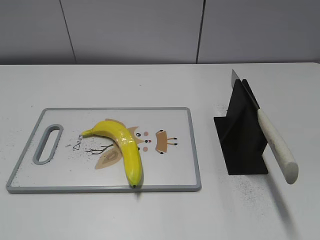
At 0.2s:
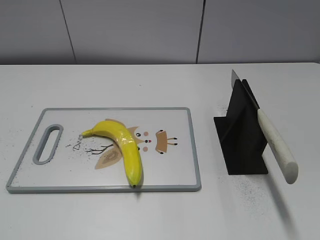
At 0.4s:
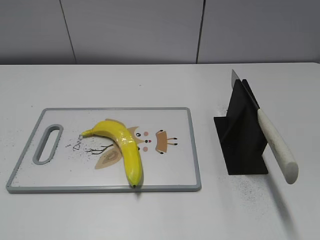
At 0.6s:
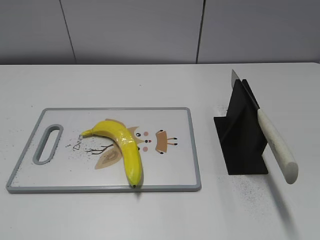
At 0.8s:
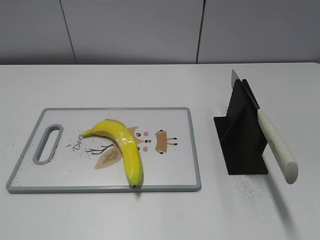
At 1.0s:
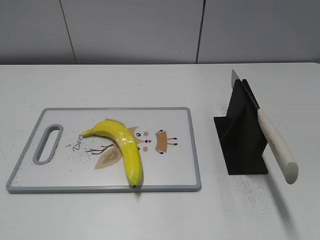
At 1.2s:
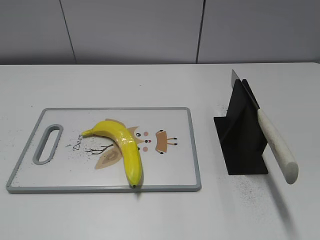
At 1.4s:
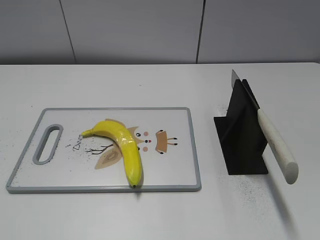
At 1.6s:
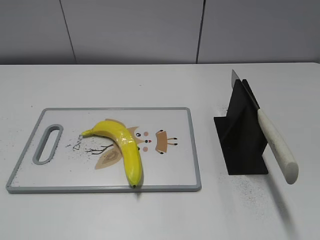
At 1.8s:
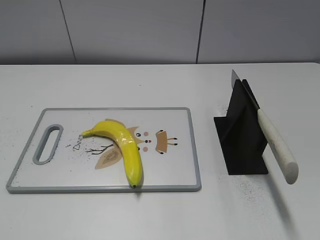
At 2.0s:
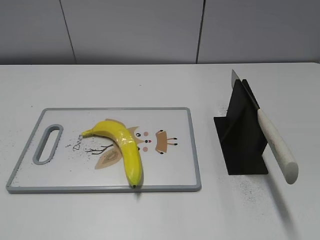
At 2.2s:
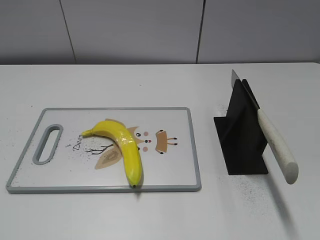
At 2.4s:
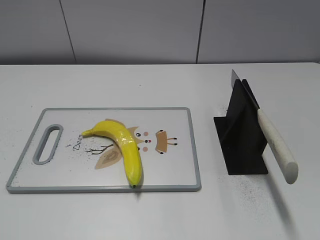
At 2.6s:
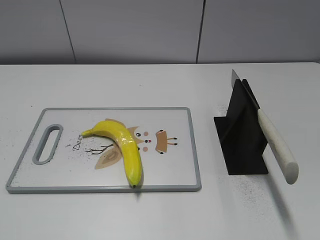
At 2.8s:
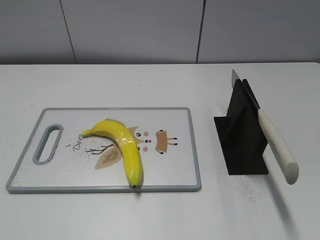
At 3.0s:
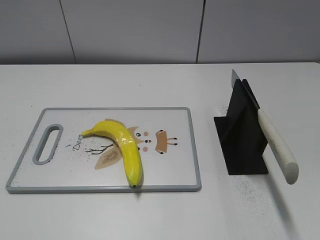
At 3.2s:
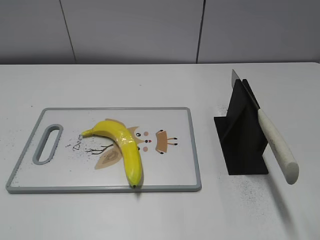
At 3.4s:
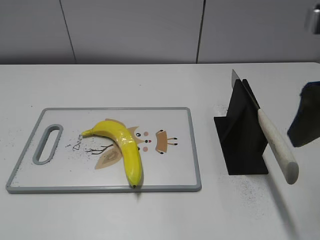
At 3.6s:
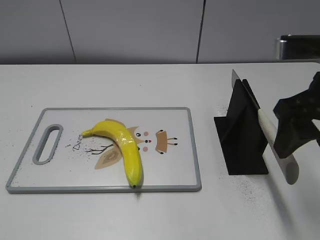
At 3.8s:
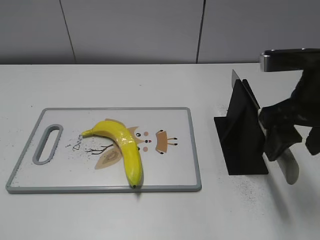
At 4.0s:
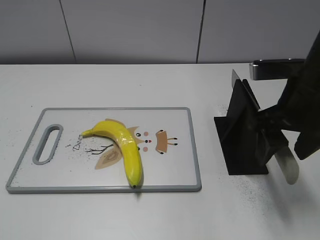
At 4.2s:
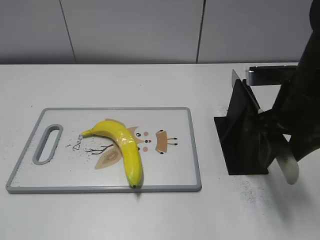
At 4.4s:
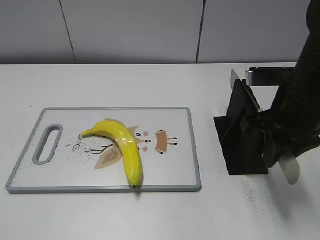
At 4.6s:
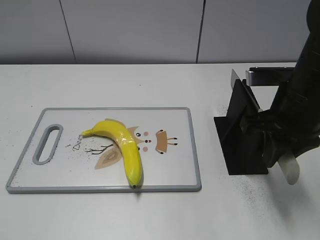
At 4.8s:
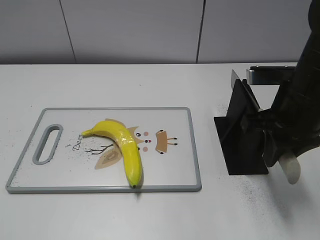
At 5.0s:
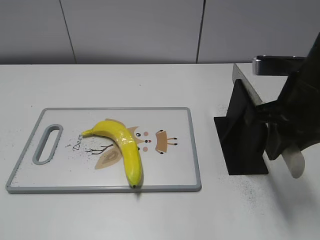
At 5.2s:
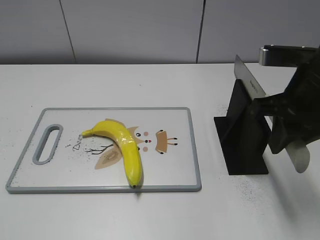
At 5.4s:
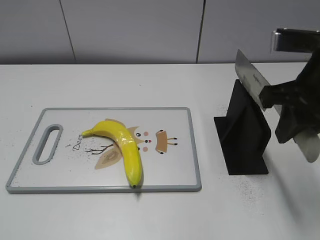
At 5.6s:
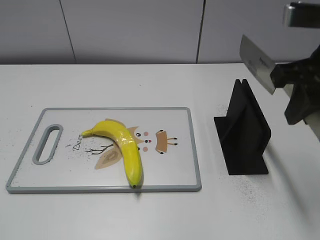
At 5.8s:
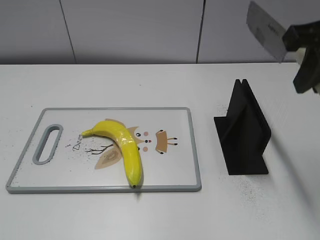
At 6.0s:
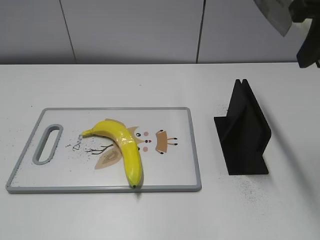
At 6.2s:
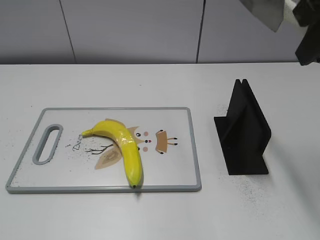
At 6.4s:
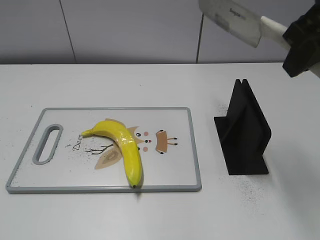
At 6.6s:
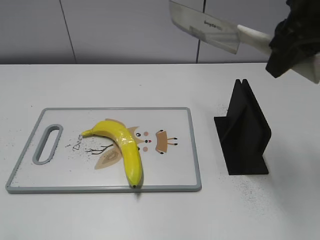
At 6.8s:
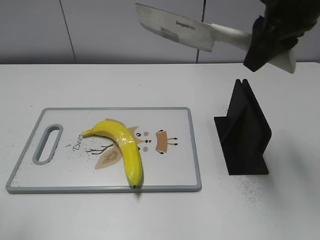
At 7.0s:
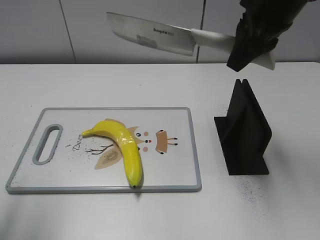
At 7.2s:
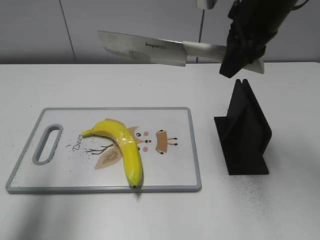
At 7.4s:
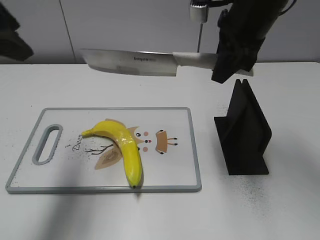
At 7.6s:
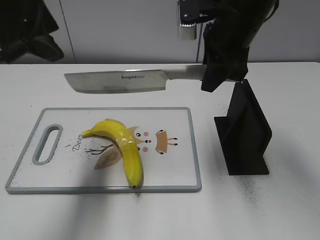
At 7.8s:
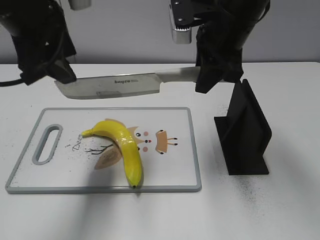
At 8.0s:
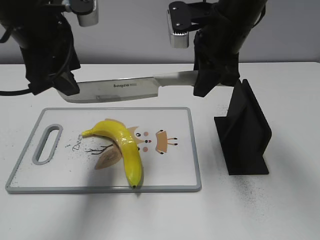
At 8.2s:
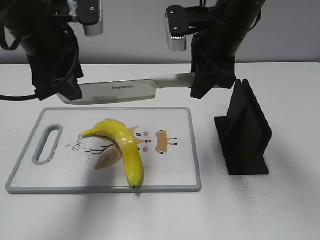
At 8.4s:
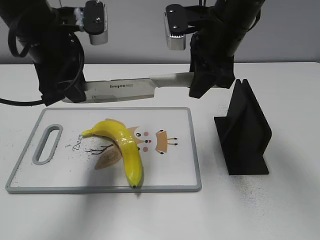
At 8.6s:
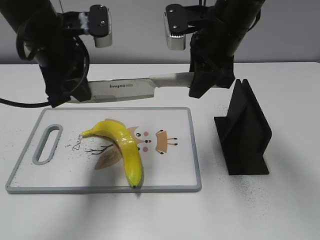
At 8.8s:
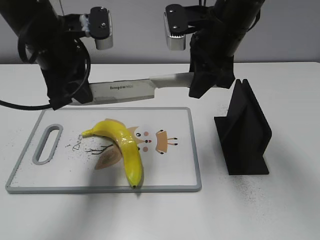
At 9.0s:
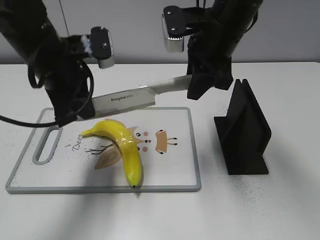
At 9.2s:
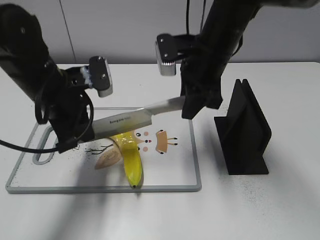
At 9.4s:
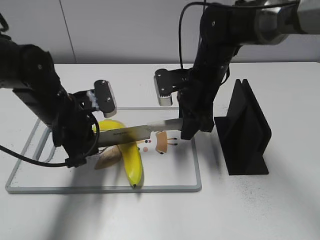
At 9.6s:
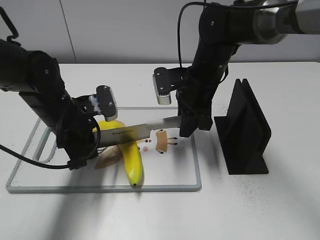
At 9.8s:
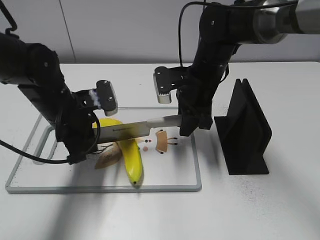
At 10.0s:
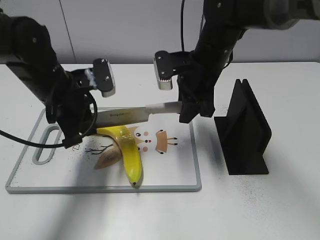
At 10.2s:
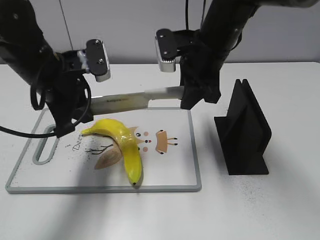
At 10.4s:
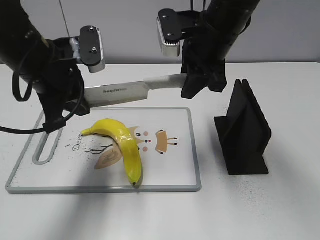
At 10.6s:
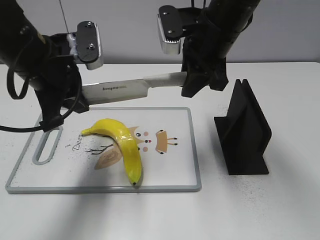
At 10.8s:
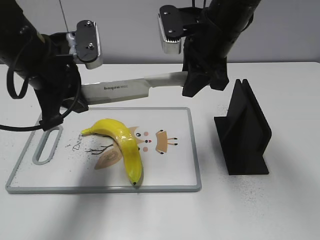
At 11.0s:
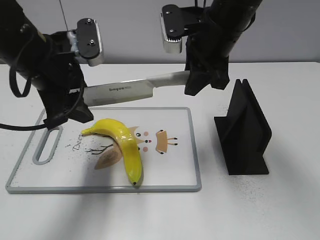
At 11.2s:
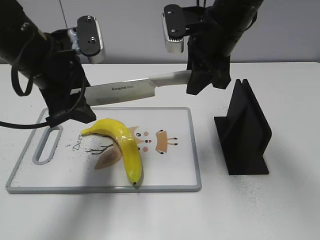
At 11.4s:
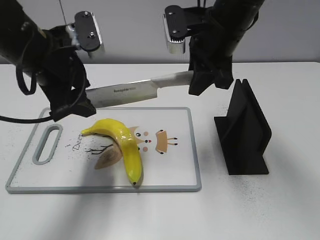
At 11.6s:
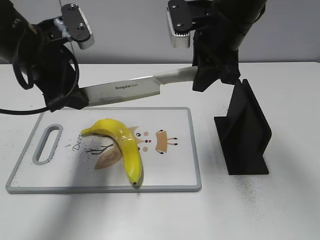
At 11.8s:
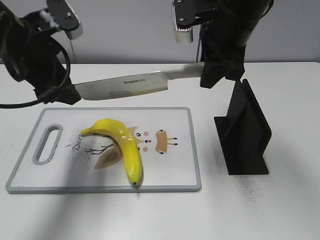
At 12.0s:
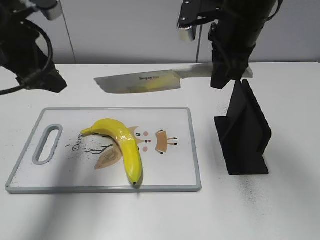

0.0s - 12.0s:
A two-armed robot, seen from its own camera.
Task of the whole recording: cut plastic banana.
Step, 0.0s - 5.6s: Grab the knife handle with your right hand.
Step, 5.8s - 10.6s: Hold the blade with your left hand.
Step, 11.0s - 11.8s: Cut the banana with your right hand.
3.0s - 4.4s: The right gripper moves forward, downward and to the left, approximately 20 cm, and closes its fingers.
4.4s - 6.0s: The right gripper moves upward, approximately 15 cm.
6.0s - 7.6s: The left gripper heads forward and to the right, covering approximately 30 cm. The right gripper shifts approximately 15 cm forward, downward and to the left.
7.6s - 9.0s: The left gripper heads downward, covering roughly 10 cm, and closes up.
9.0s - 10.4s: The right gripper moves approximately 10 cm downward and comes back; the left gripper goes downward and returns, approximately 10 cm each way.
10.4s - 12.0s: The left gripper changes place by about 5 cm, and opens up.

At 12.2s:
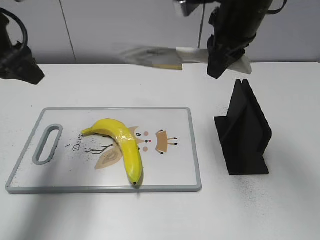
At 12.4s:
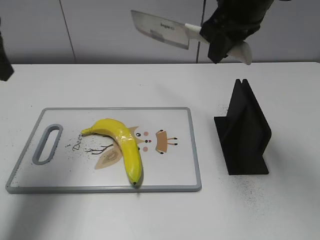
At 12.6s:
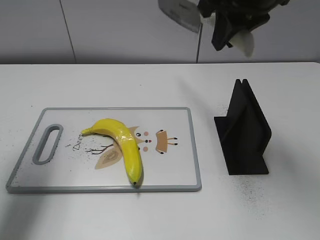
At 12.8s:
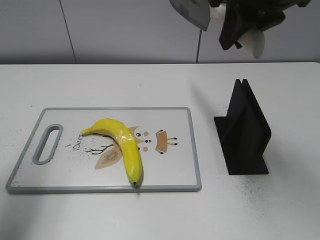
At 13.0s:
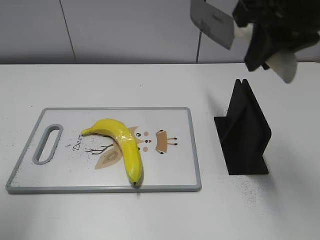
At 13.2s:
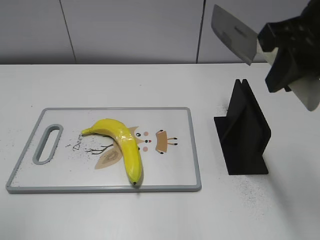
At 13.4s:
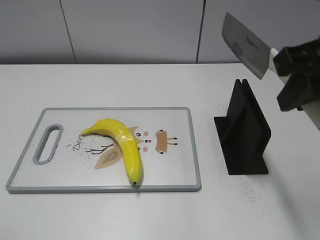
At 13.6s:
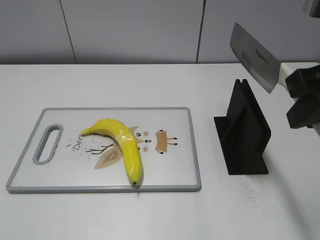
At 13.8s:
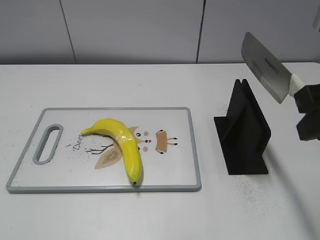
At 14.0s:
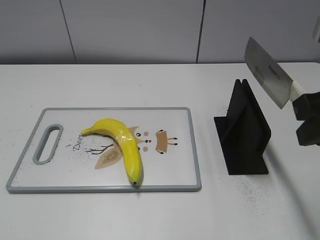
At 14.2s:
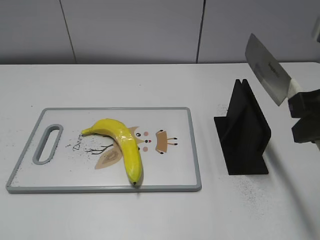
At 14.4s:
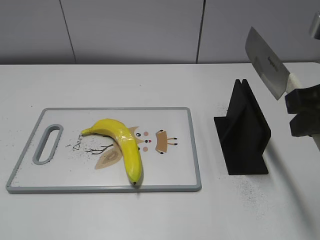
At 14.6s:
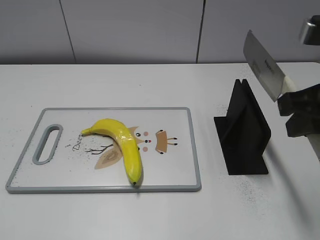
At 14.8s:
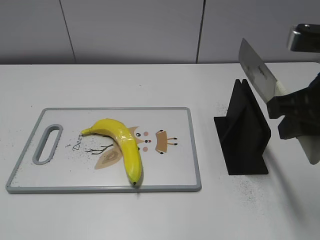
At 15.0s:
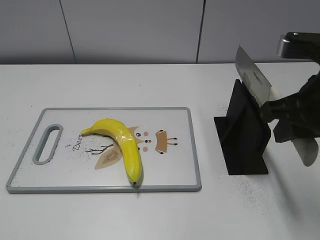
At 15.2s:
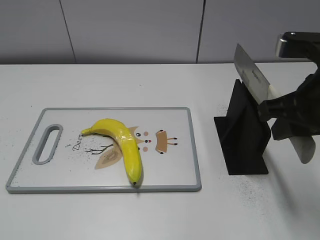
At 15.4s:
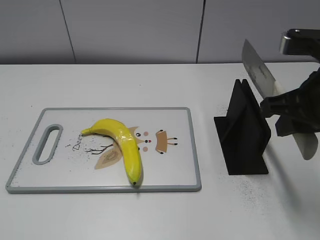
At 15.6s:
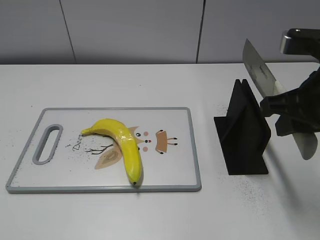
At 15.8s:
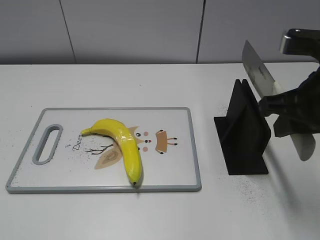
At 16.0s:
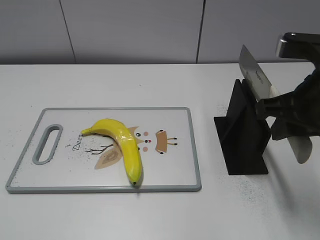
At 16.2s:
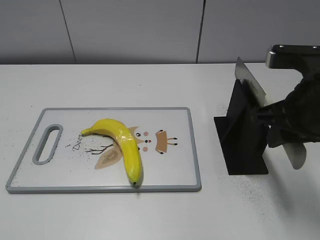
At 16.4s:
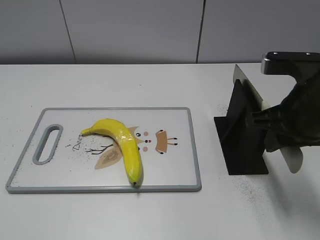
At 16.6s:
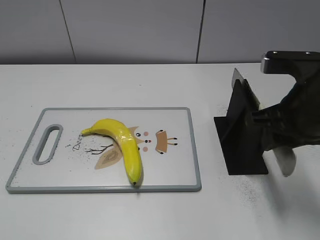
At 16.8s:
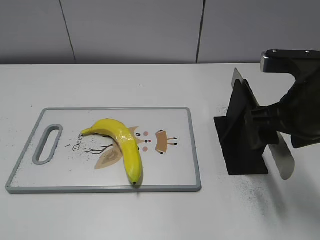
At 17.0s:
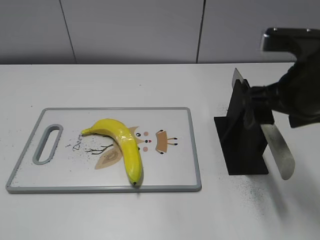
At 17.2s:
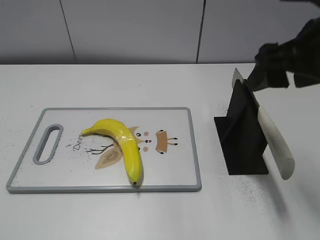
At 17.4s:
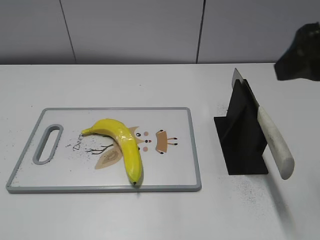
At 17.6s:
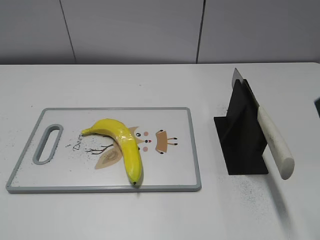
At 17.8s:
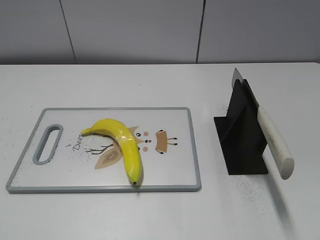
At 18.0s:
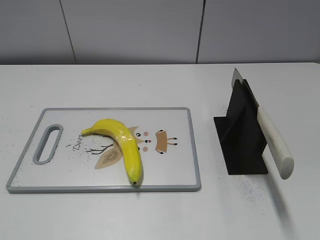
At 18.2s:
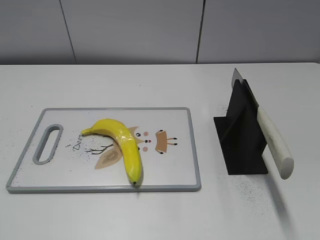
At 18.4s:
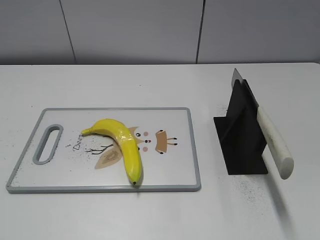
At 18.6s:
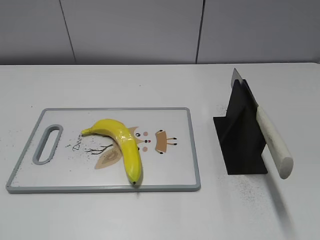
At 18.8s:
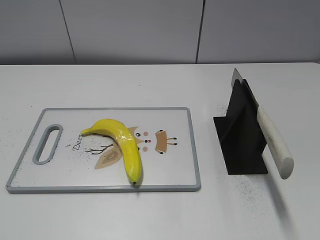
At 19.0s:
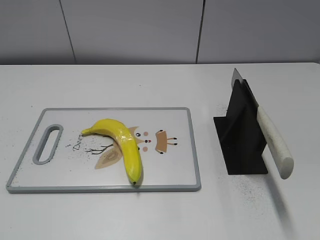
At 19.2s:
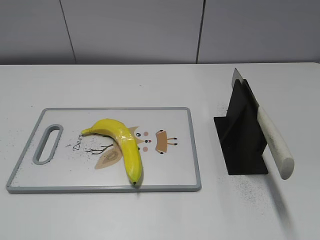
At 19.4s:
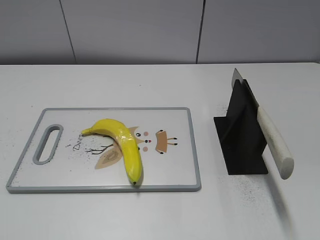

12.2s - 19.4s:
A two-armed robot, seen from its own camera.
Task of the whole recording: cut plastic banana.
Step, 12.2s - 13.6s: Lift the knife with your right hand.
Step, 13.8s - 19.4s: Place the knife on the storage rack with your right hand.
12.2s - 13.6s: The right gripper is displaced backward and to the right by about 20 cm. Meanwhile the left gripper heads backward, covering some 25 cm.
13.6s - 15.0s: The right gripper shifts approximately 5 cm downward.
15.0s - 16.6s: The grippers stay close to where they were, moving slightly.
16.6s - 18.0s: The right gripper goes roughly 20 cm backward and to the right, and opens.

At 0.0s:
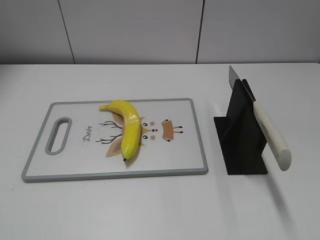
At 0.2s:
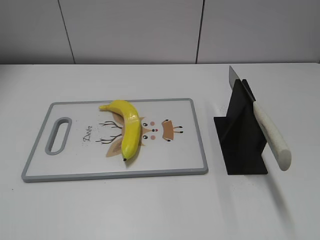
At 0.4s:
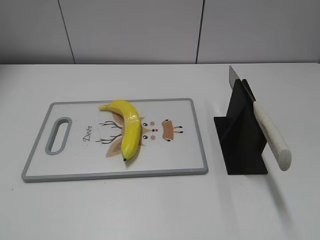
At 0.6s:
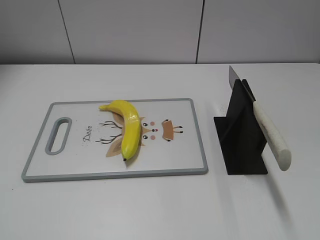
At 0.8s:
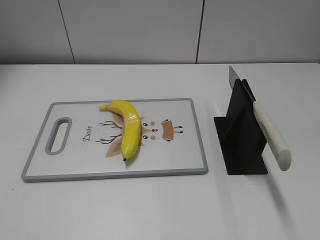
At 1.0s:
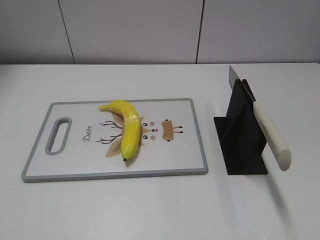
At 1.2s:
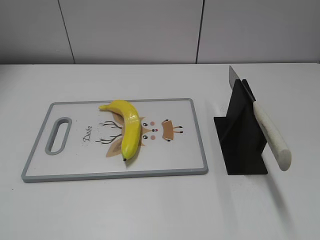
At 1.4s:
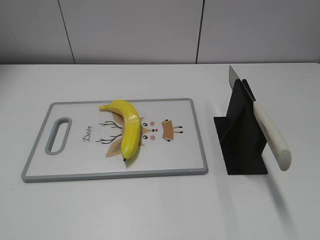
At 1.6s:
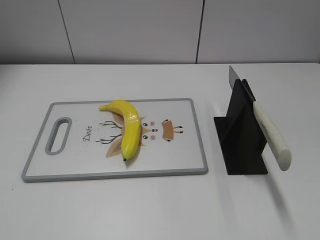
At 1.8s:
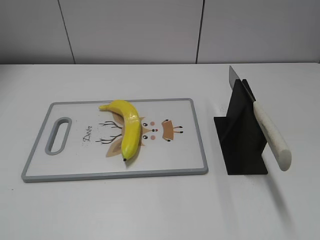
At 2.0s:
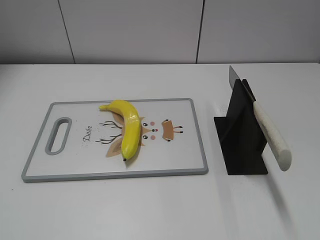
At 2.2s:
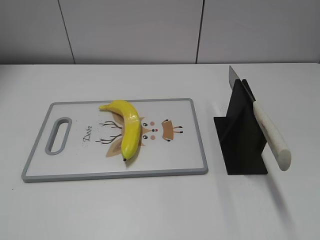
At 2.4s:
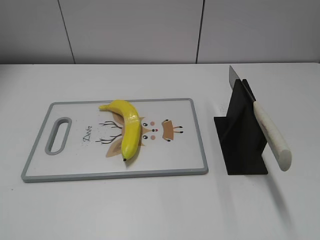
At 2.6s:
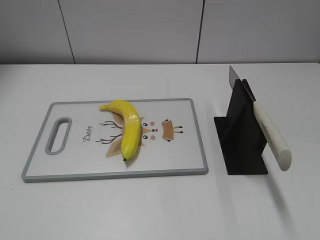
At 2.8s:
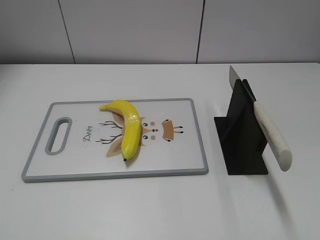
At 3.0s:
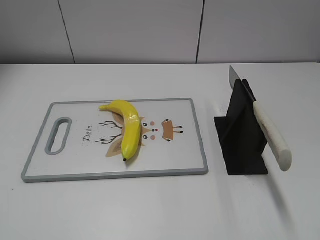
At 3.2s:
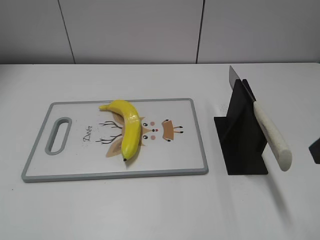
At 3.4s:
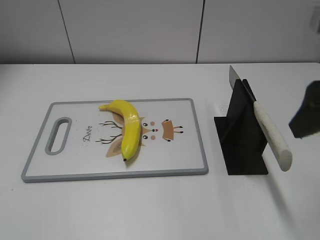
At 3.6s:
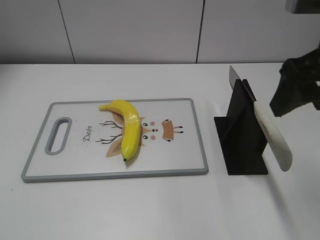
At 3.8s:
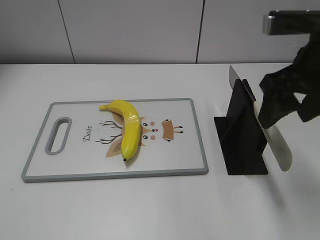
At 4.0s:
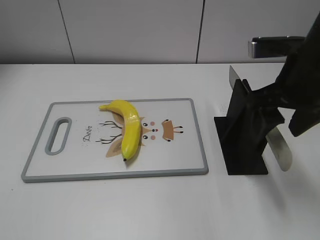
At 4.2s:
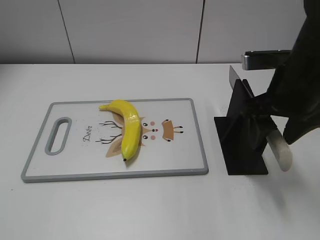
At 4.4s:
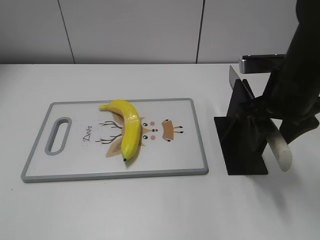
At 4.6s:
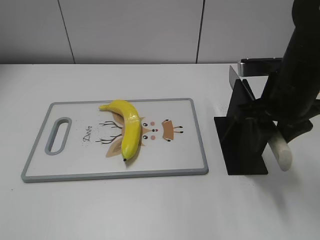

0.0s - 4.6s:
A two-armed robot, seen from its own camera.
Task of the whole recording: cut plastic banana.
3.0s - 4.6s: The right gripper shifts approximately 20 cm forward, downward and to the left, and closes.
